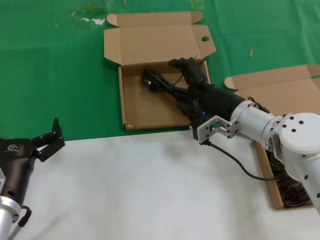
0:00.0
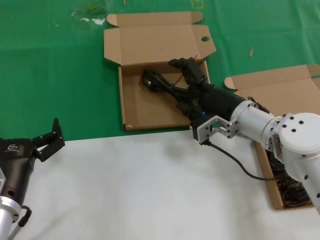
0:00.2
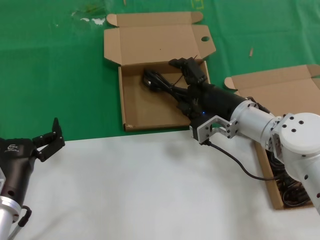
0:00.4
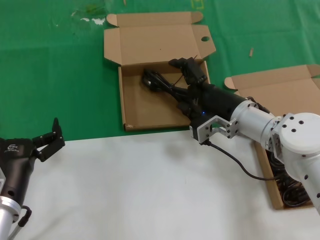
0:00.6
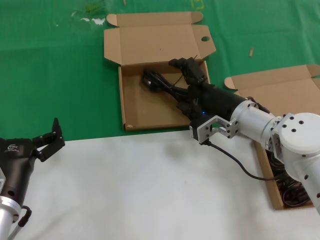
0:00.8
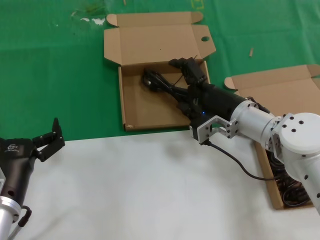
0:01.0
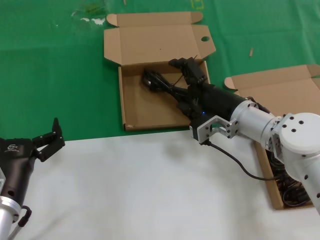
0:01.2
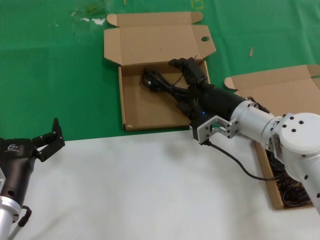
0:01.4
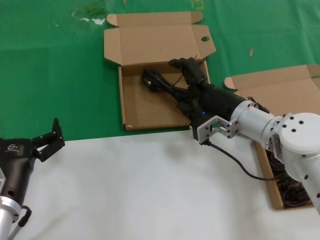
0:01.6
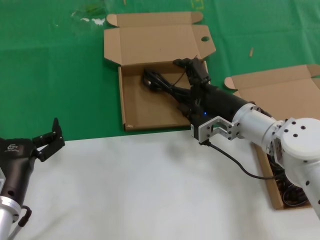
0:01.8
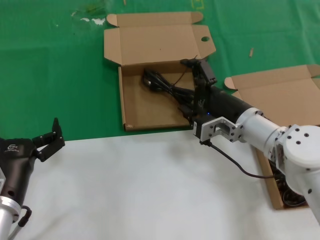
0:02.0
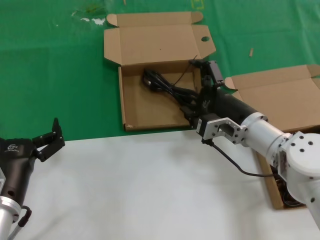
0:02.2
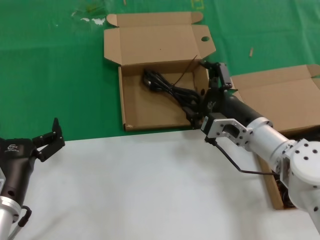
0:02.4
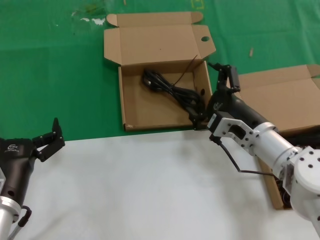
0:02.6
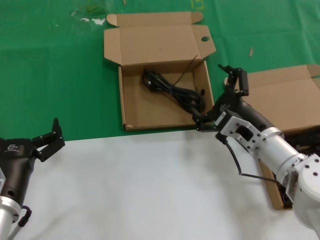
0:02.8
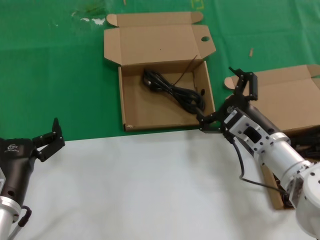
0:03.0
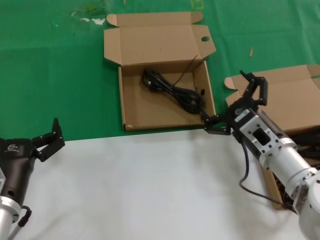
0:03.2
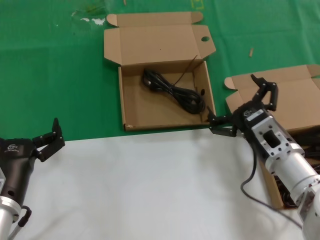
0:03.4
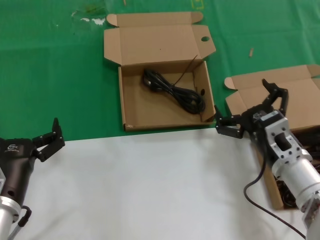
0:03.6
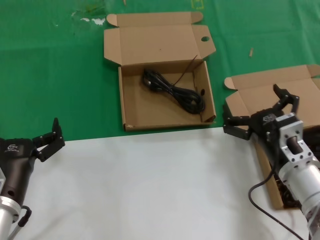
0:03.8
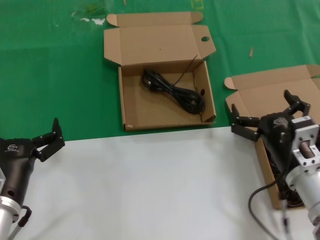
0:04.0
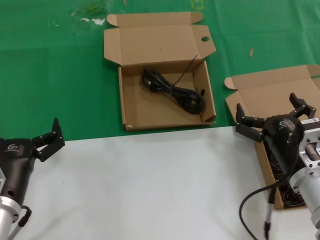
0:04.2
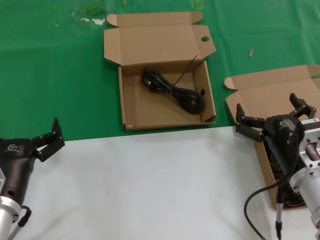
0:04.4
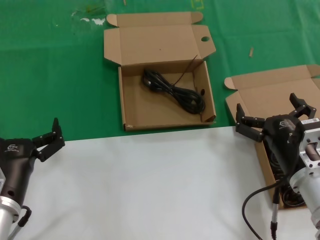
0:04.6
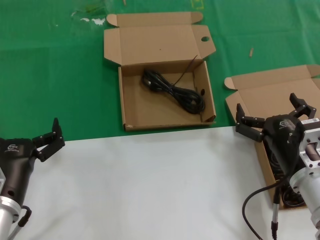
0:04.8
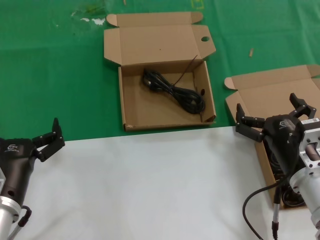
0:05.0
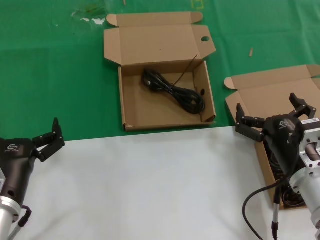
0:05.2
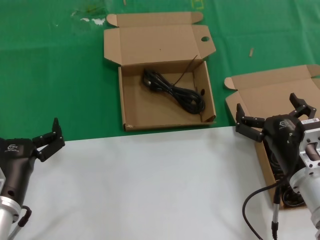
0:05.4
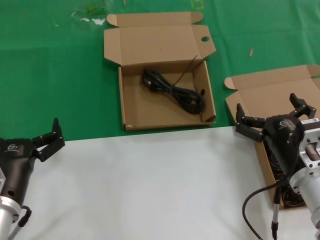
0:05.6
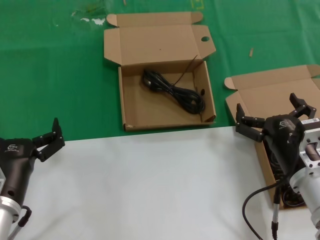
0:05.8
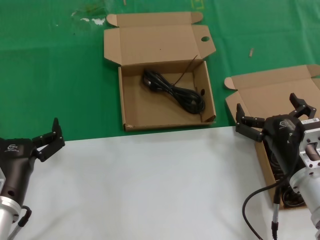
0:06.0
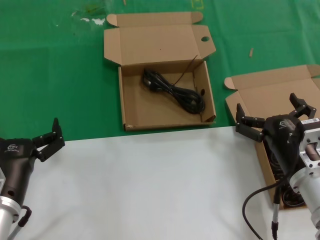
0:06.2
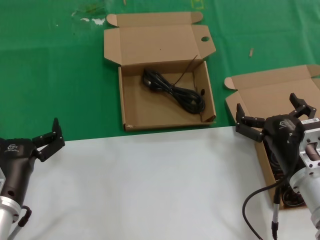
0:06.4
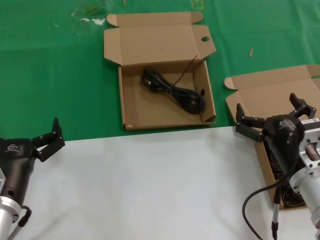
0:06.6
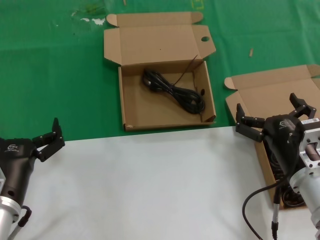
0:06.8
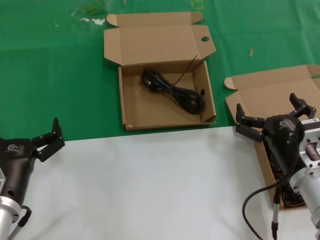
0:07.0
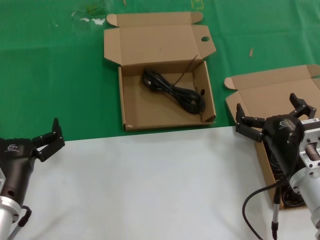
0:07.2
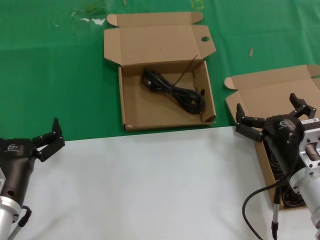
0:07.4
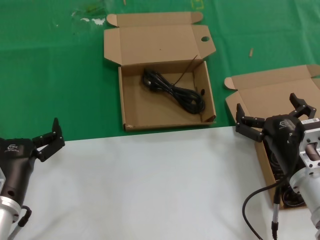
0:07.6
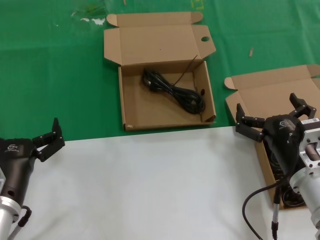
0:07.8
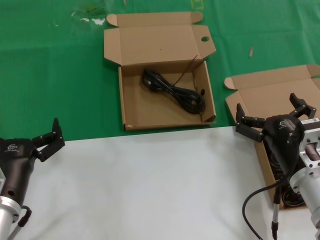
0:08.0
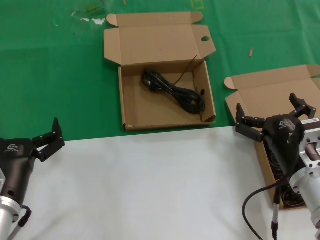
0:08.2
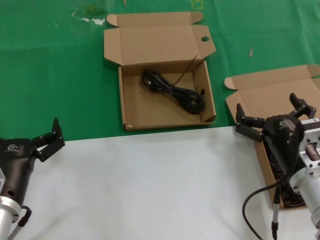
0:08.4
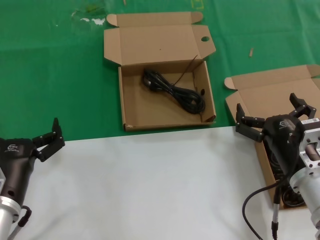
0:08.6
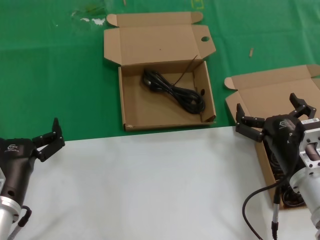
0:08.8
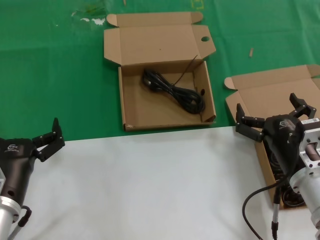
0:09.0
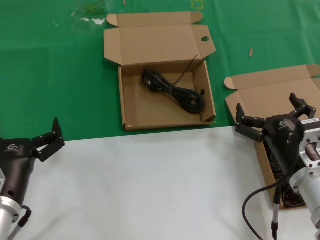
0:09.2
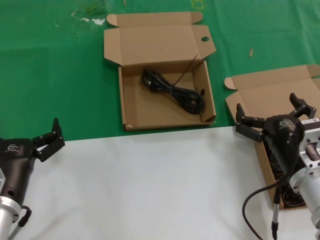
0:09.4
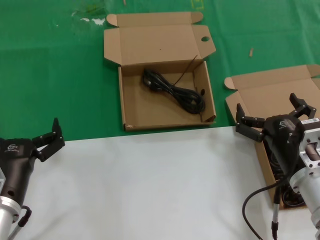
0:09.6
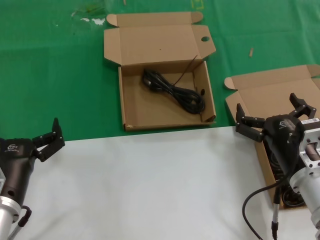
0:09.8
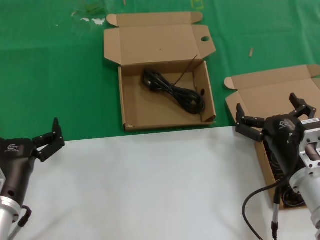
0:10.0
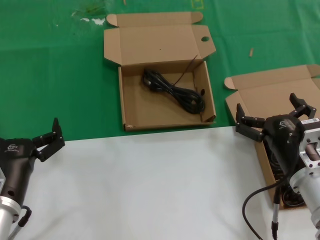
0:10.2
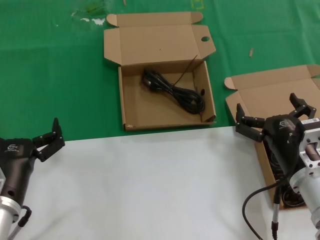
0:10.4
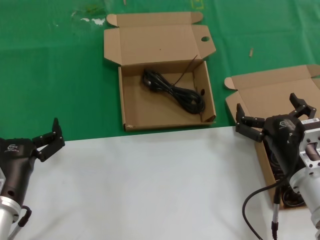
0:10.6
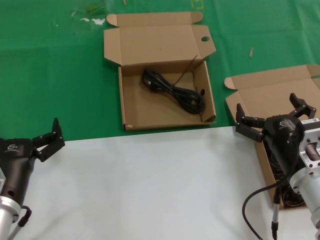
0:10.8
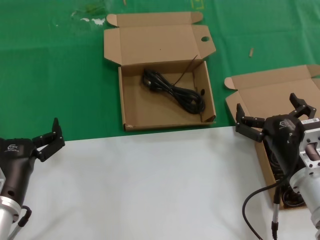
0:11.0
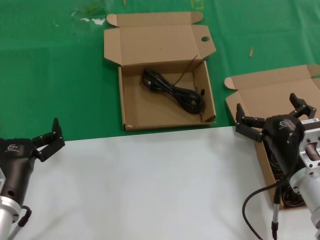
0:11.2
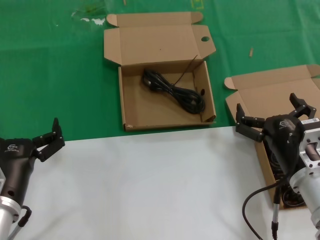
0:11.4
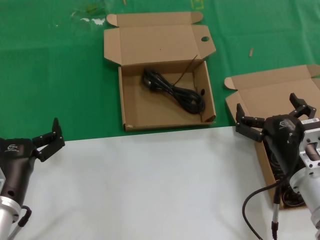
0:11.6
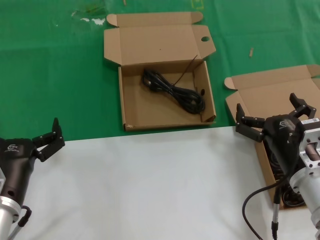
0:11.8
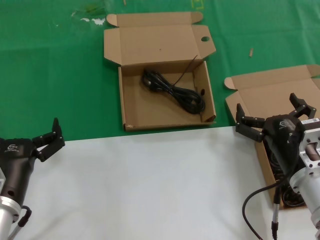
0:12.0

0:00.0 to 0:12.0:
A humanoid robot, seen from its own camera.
Task of the whole recording: take the parts from the box containing them and put them into an empty box.
0:00.0 to 0:01.6: Both hands stay put.
0:01.6 to 0:03.0: The right hand goes some 5 cm backward.
0:03.0 to 0:04.4: The right hand heads backward, covering some 10 cm.
0:04.4 to 0:12.0: Neither hand changes place.
